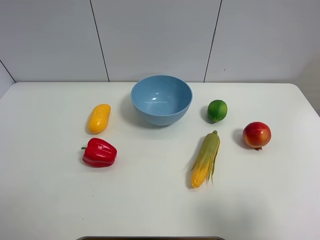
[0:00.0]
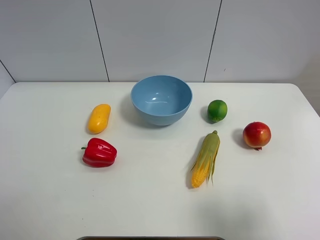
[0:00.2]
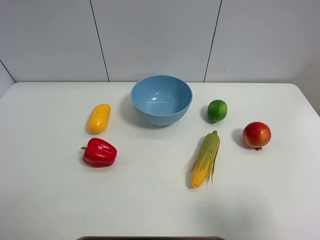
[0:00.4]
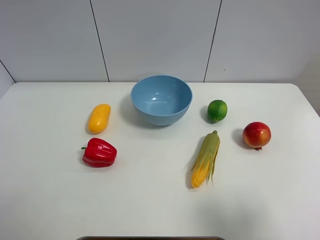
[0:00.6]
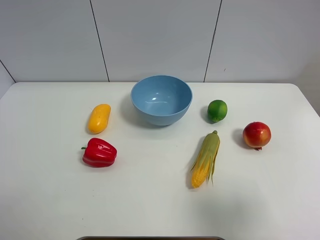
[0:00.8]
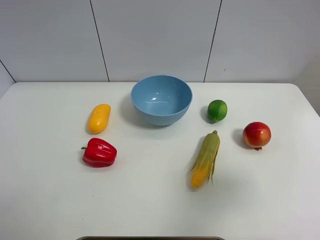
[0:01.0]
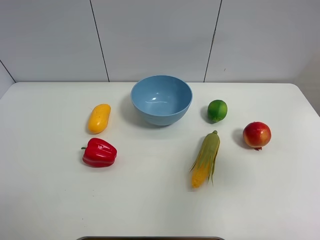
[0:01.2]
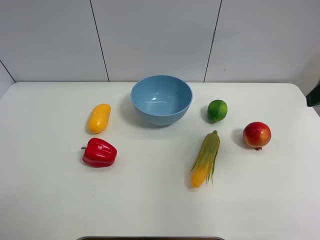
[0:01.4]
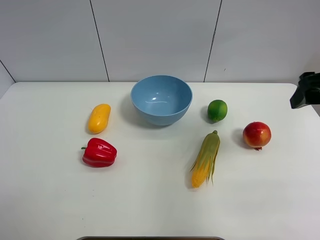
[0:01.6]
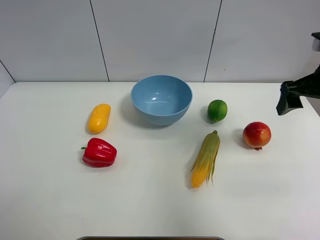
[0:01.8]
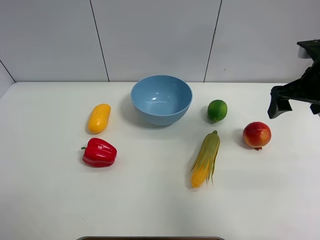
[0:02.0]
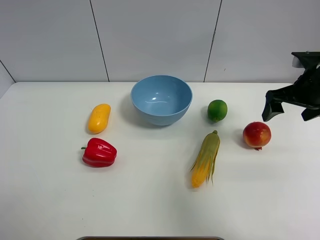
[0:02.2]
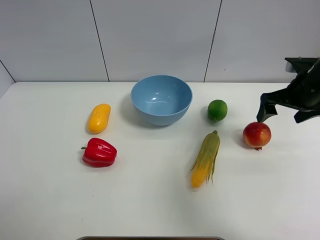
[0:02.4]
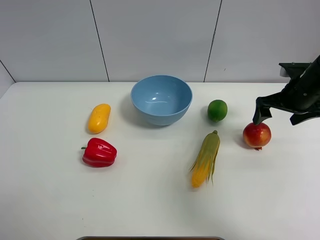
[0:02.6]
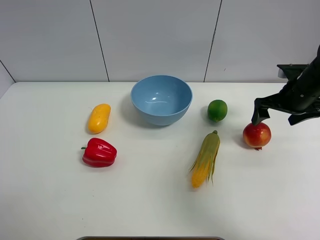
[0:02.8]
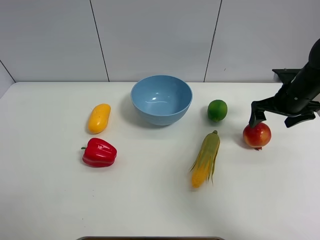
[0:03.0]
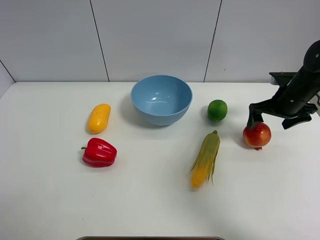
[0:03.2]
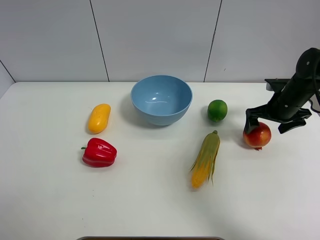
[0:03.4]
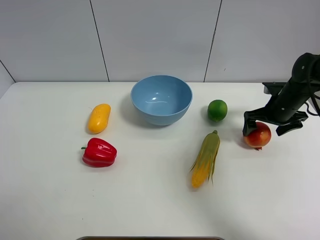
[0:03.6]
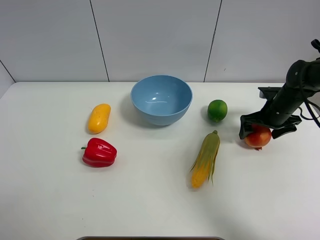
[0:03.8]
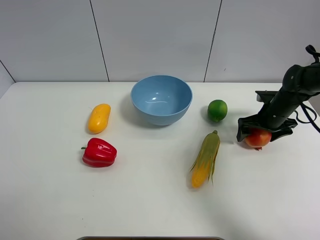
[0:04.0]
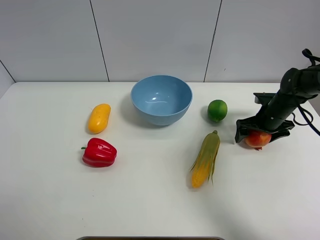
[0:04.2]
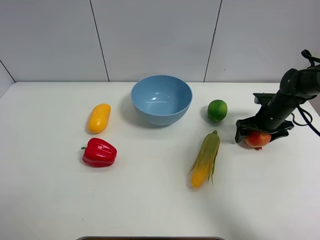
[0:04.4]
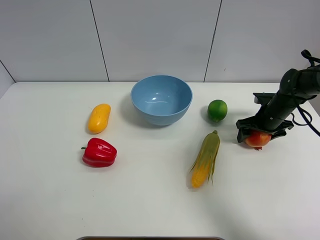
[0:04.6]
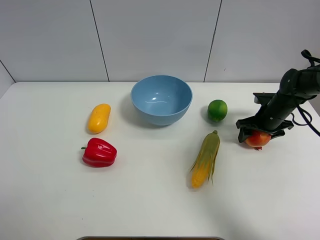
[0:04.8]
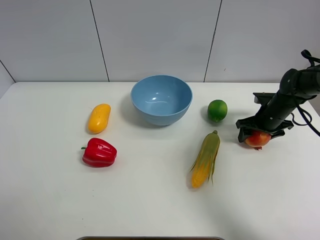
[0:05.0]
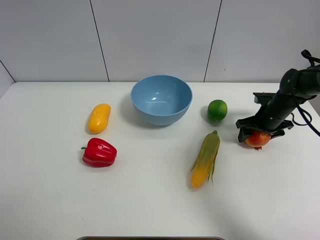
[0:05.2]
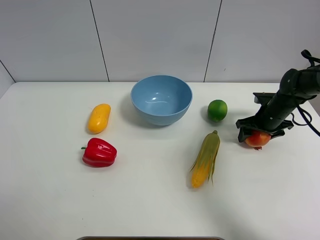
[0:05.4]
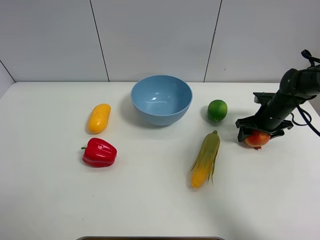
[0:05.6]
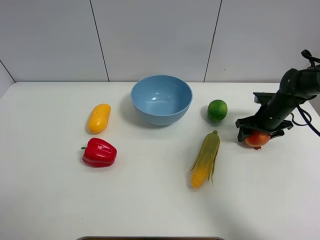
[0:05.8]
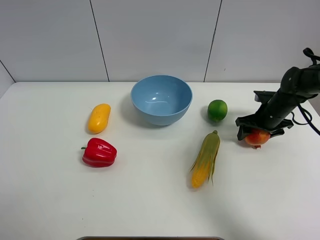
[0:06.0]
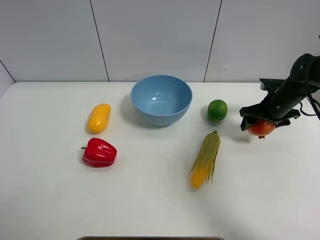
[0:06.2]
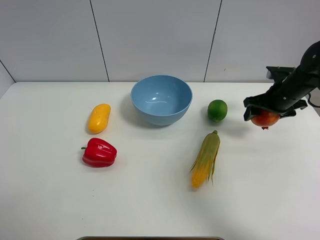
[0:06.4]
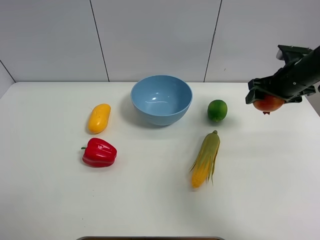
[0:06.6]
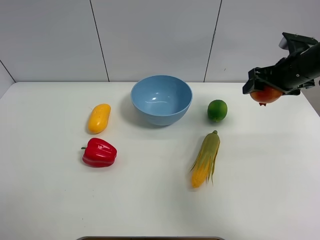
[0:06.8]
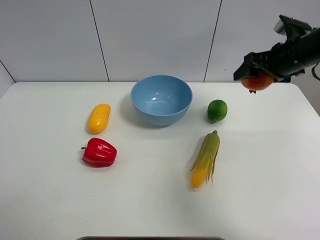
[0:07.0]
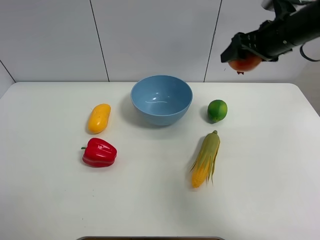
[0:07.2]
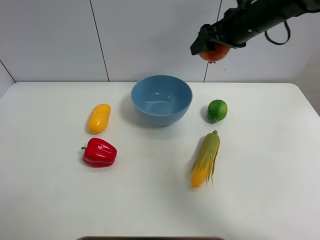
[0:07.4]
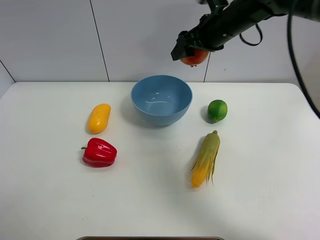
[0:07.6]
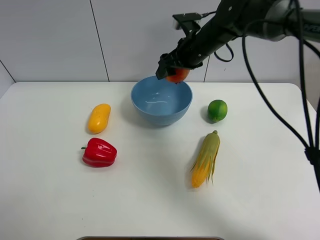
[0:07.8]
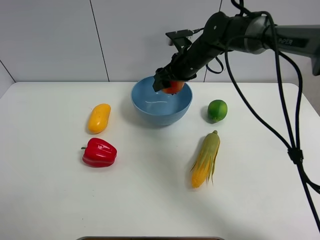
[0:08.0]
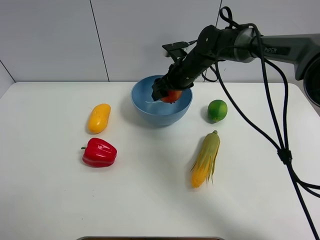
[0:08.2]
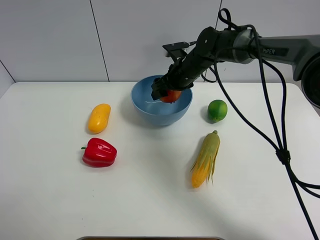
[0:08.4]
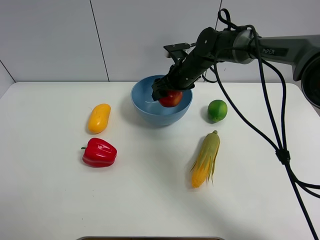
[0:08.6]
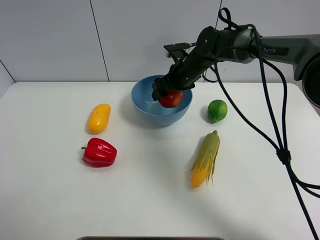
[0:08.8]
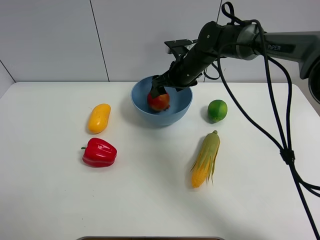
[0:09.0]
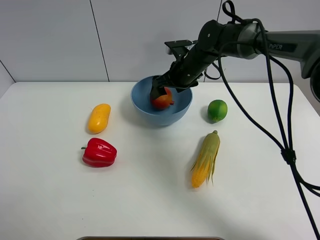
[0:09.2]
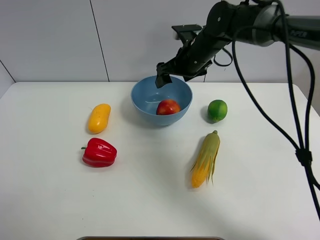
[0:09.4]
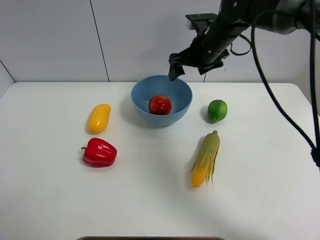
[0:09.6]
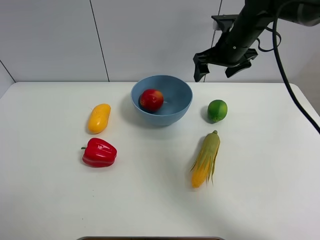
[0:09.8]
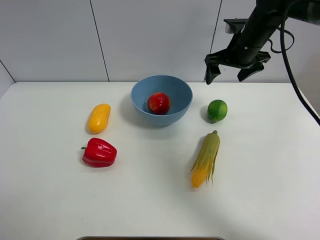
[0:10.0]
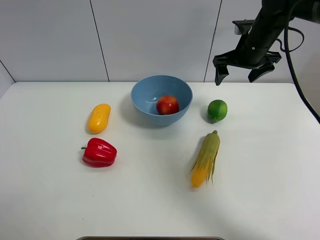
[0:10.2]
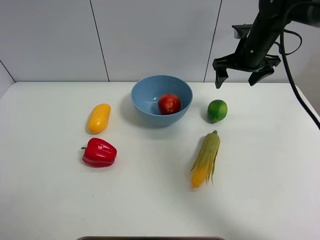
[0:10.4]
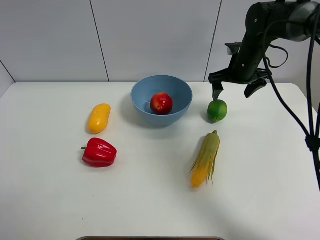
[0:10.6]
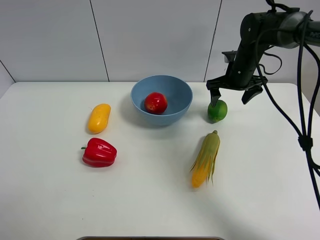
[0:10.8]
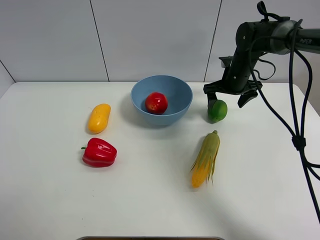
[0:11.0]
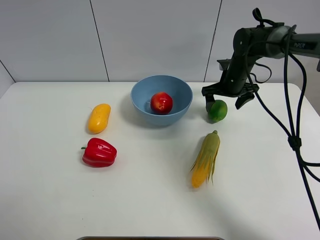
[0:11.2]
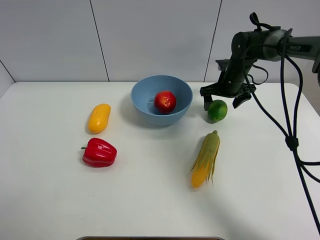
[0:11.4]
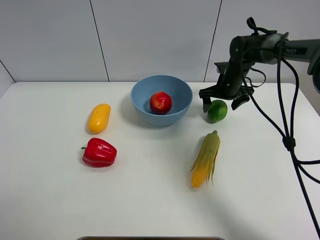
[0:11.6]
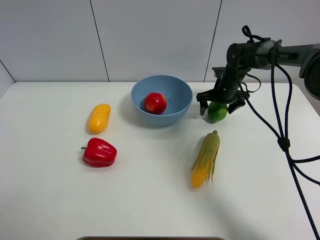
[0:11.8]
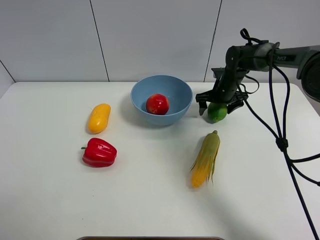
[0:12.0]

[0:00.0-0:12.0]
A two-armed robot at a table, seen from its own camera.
Task of the whole recording: Put the three fruits on the table into a bowl.
Step, 0:00.0 to 0:04.6: Grasp the pomegranate with right gripper.
Step, 0:04.8 to 0:08.8: Place the pomegranate in the blue bowl with right gripper.
0:00.0 to 0:01.6: The right gripper travels forward by about 25 cm.
0:01.6 to 0:03.0: The right gripper heads downward and forward, covering roughly 20 cm.
0:03.0 to 0:04.4: The right gripper is displaced downward by about 10 cm.
0:04.4 to 0:06.0: The right gripper closes.
0:06.0 to 0:07.6: The right gripper is displaced upward and to the left by about 25 cm.
0:07.6 to 0:09.0: The right gripper moves downward, roughly 10 cm, and opens its fingers.
0:09.0 to 0:10.4: The right gripper goes roughly 15 cm to the right and upward.
0:10.4 to 0:12.0: The right gripper moves downward, roughly 15 cm.

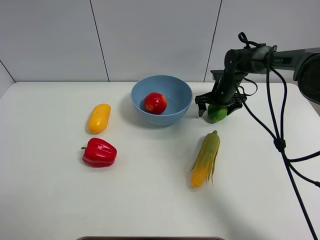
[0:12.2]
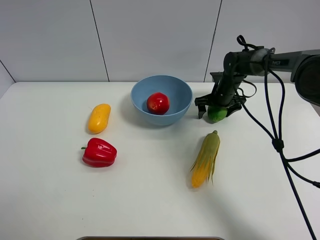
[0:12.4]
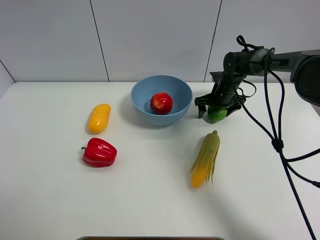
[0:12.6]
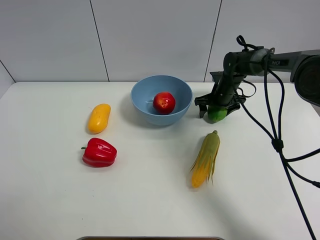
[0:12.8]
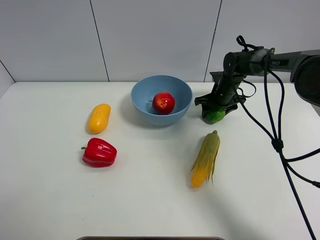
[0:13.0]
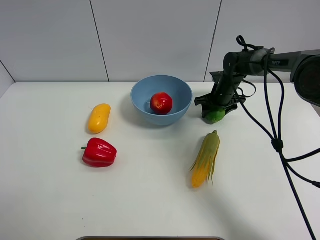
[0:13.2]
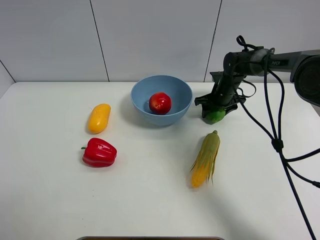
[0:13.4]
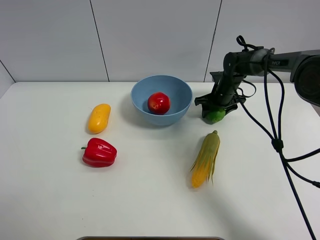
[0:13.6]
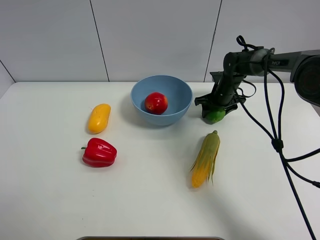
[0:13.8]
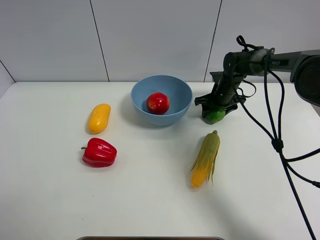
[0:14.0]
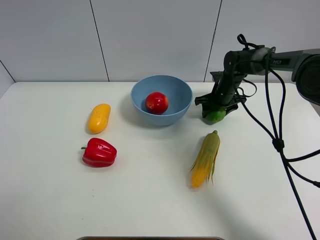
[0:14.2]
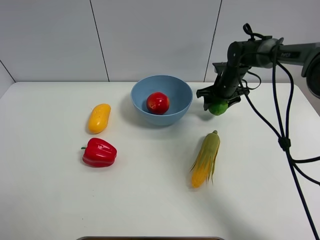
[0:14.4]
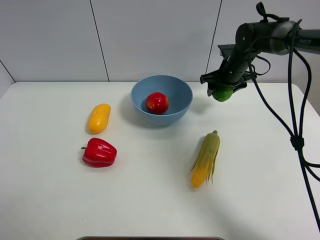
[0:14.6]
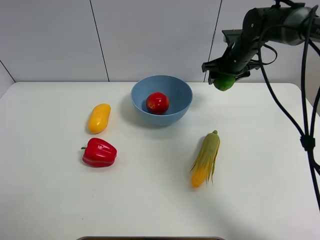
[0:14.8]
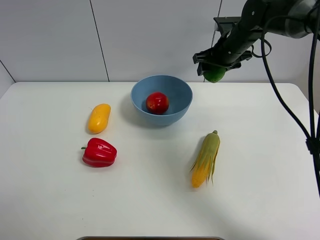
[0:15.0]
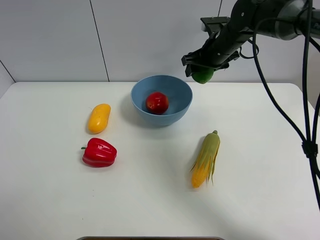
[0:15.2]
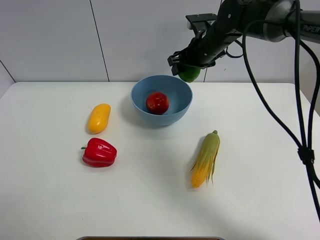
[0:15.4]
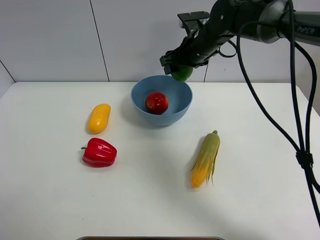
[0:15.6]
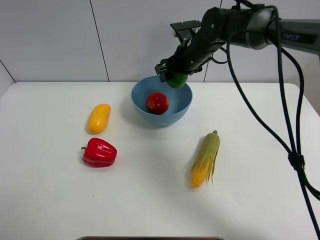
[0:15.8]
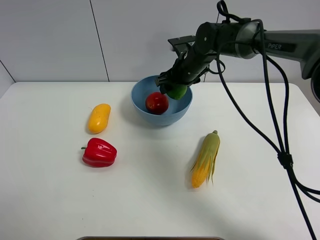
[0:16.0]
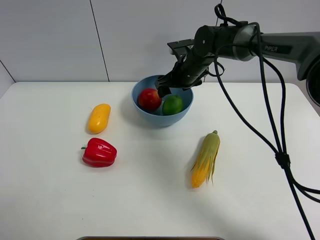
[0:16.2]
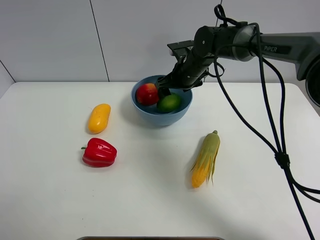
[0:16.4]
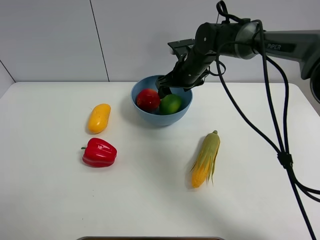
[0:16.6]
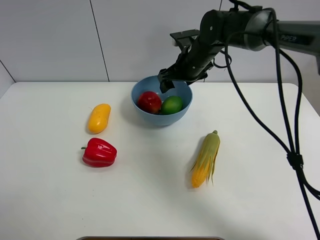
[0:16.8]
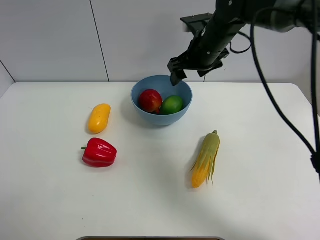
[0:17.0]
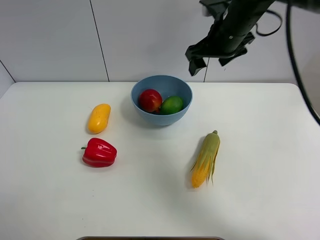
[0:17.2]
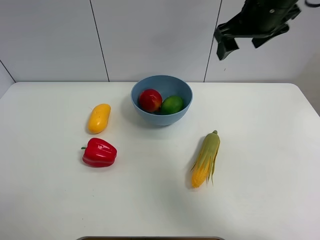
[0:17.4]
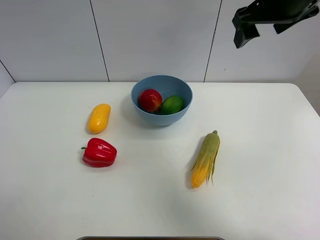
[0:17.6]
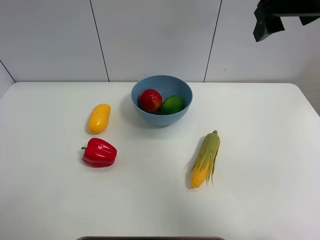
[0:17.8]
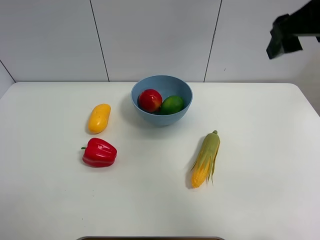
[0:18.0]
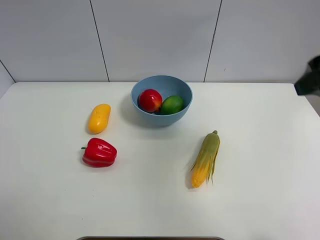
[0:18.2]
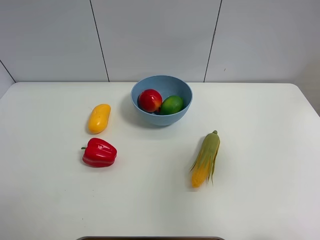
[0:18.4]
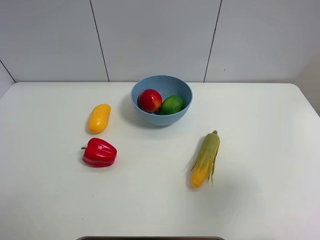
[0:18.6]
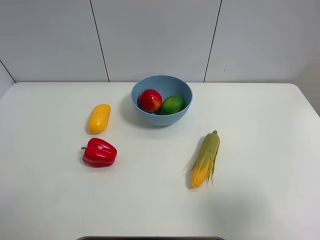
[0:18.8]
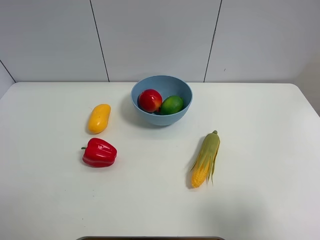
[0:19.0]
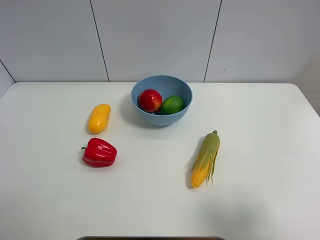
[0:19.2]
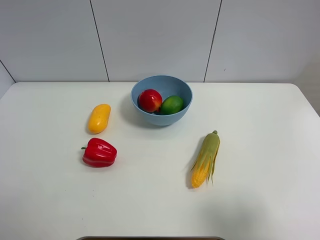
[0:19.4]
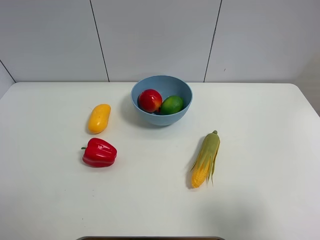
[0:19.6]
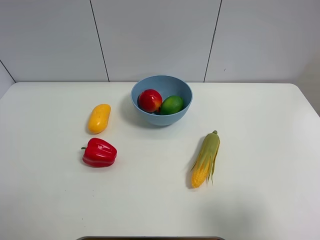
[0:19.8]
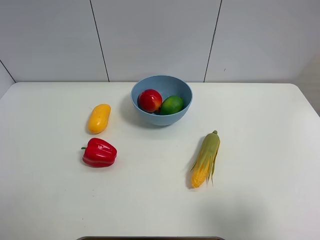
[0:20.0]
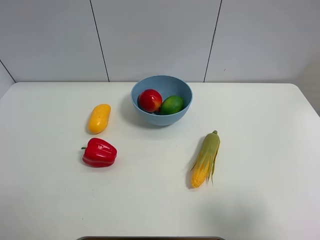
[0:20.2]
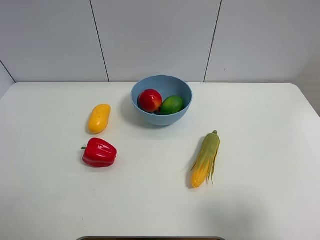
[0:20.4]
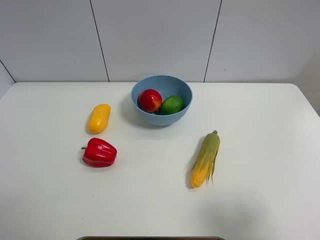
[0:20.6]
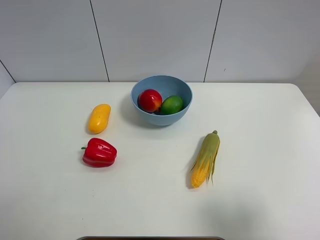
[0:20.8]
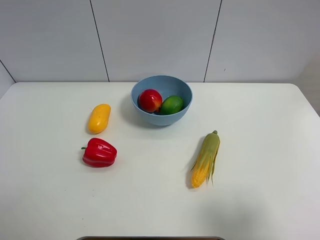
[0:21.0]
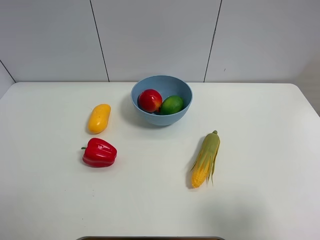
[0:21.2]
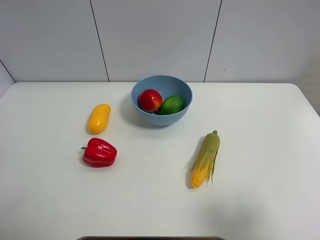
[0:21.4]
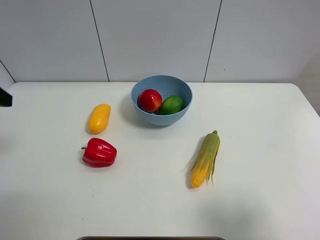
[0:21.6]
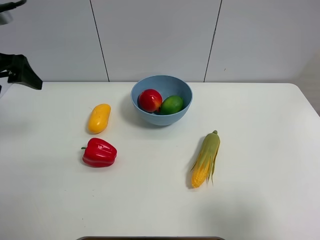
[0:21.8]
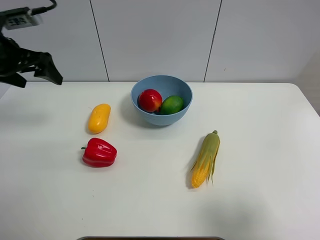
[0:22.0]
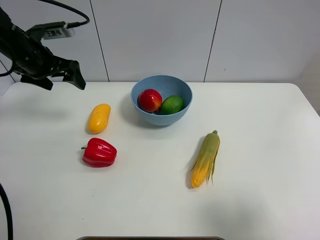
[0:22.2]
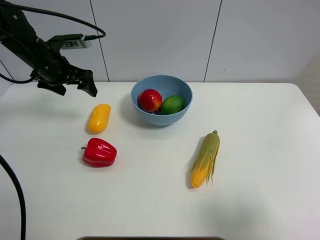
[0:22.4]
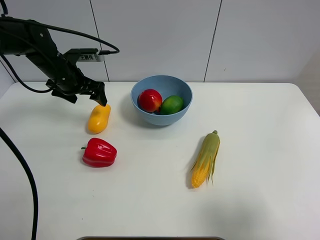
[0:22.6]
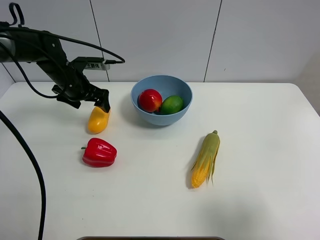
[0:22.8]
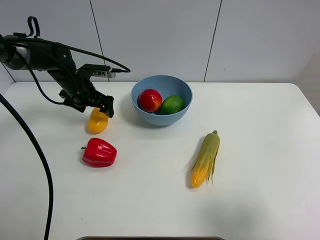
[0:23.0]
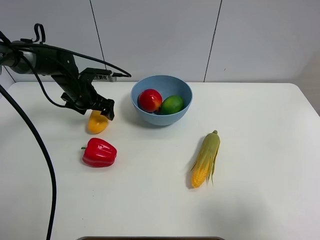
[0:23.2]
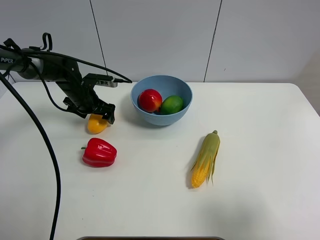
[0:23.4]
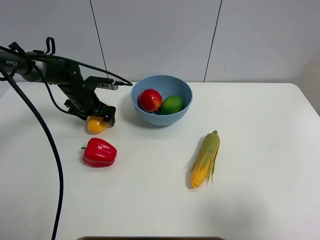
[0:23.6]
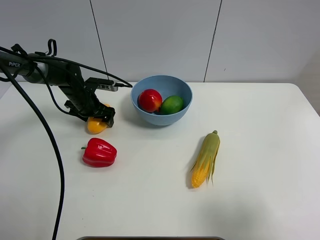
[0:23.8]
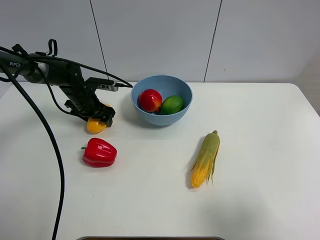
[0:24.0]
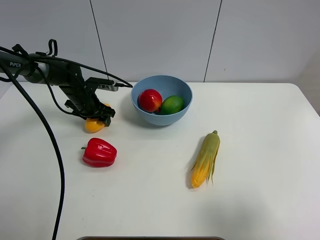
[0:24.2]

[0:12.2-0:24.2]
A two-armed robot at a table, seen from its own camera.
Task of the whole recording: Put the three fruits on the table into a bowl.
Step, 0:13.2 to 0:16.4: Place the green lemon in the blue bowl with right gripper.
0:12.2 to 0:13.8: The right gripper closes its fingers.
0:13.8 to 0:15.2: The right gripper is displaced upward by some 15 cm.
0:15.2 to 0:16.6: The right gripper moves to the left, approximately 5 cm, and opens its fingers.
0:16.6 to 0:18.2: The right gripper travels backward, upward and to the right by some 35 cm.
0:18.2 to 0:19.8: The right gripper travels backward and downward by approximately 20 cm.
0:21.2 to 0:22.6: The left gripper travels forward by roughly 35 cm.
0:22.6 to 0:24.2: The left gripper is displaced downward by about 10 cm, and closes.
